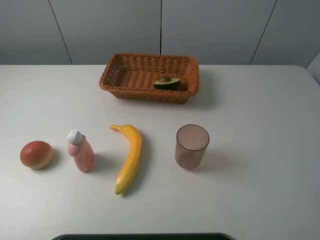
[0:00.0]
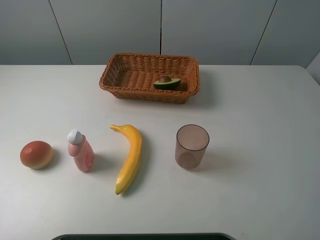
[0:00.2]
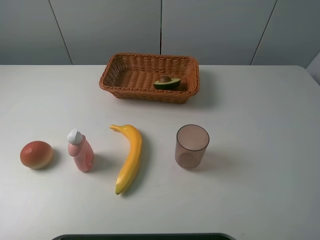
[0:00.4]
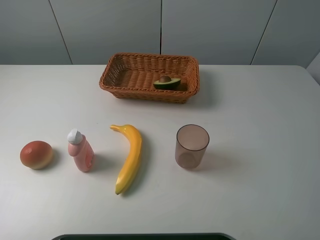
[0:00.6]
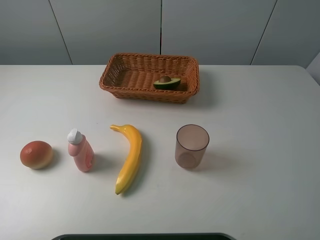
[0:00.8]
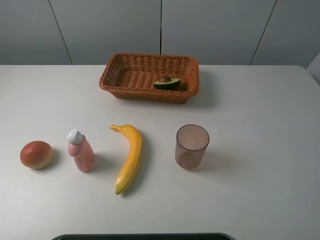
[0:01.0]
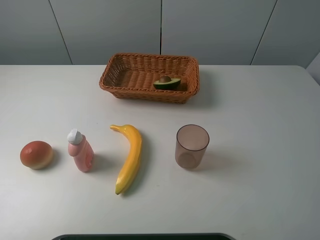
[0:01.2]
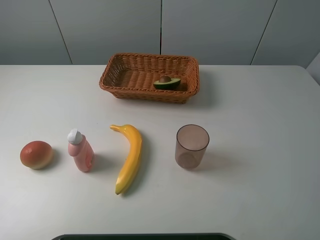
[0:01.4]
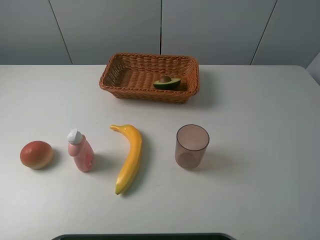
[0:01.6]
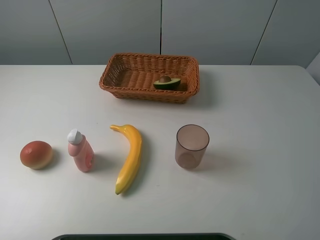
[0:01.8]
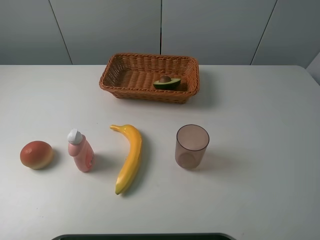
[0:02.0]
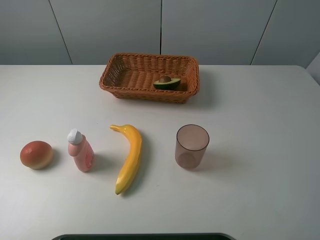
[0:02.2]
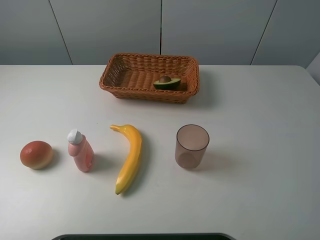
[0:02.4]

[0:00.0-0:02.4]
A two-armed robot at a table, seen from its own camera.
Task of the whole recording: randomly pick up an item from the table and put it in the basket.
0:01.2 to 0:02.4: The two grippers keep their place.
